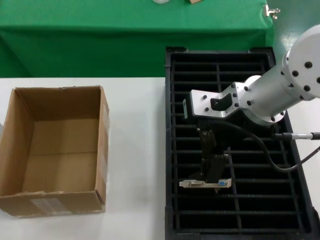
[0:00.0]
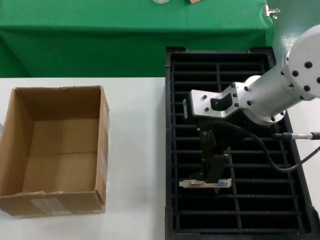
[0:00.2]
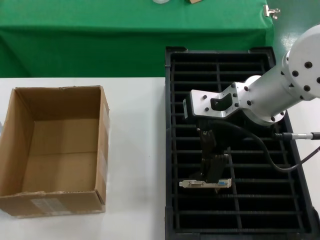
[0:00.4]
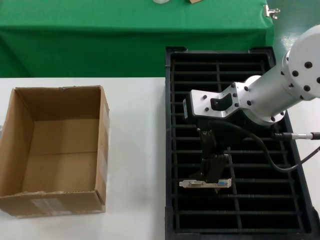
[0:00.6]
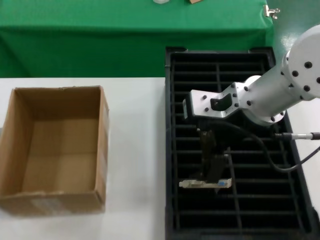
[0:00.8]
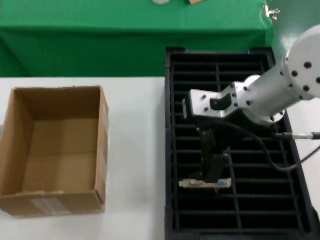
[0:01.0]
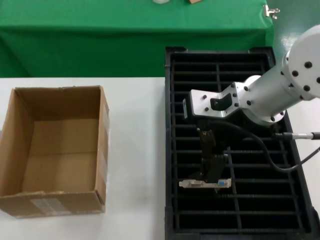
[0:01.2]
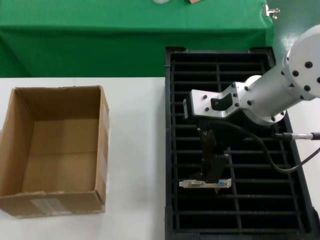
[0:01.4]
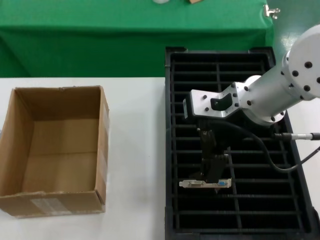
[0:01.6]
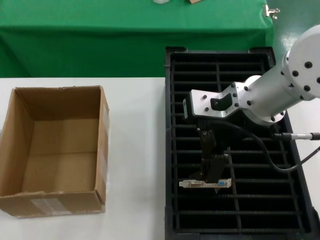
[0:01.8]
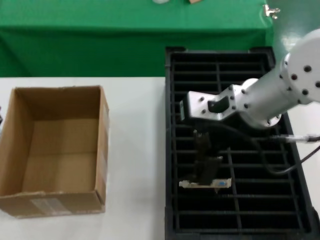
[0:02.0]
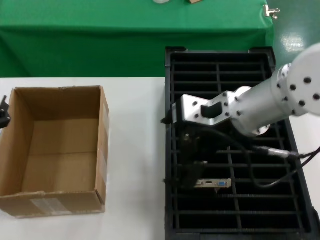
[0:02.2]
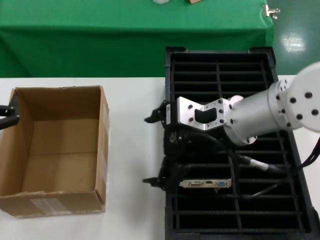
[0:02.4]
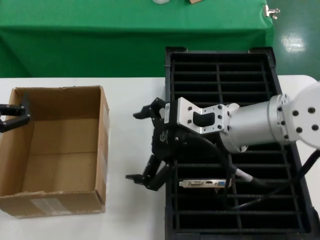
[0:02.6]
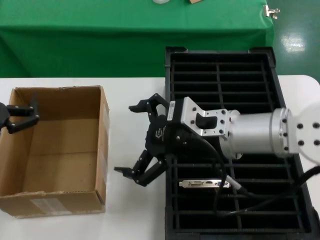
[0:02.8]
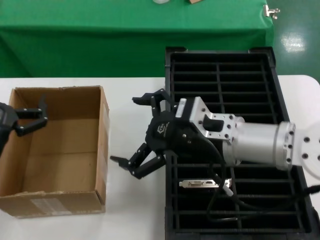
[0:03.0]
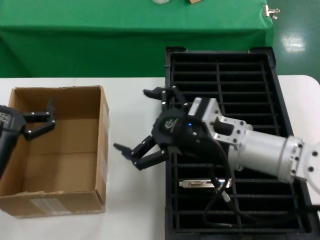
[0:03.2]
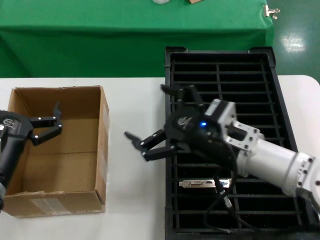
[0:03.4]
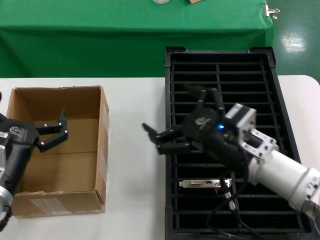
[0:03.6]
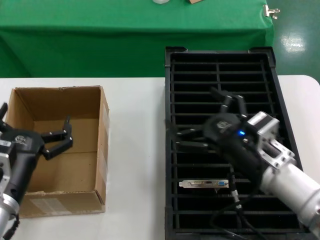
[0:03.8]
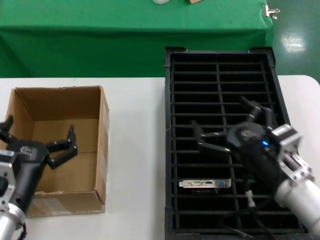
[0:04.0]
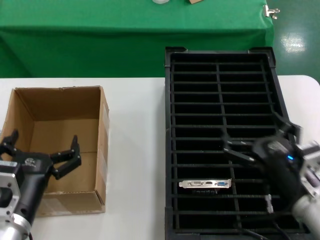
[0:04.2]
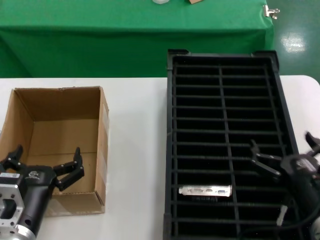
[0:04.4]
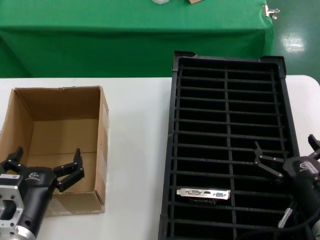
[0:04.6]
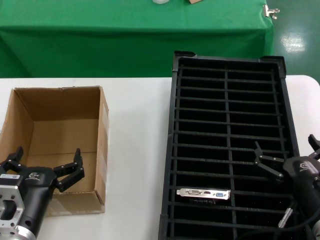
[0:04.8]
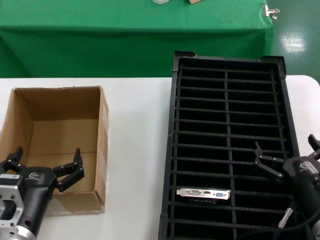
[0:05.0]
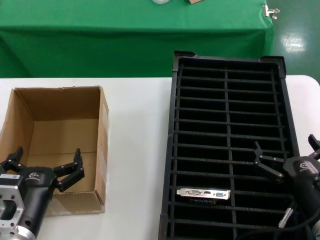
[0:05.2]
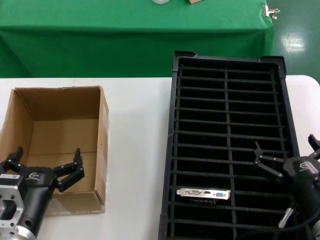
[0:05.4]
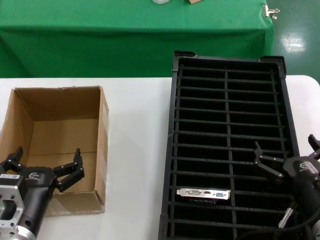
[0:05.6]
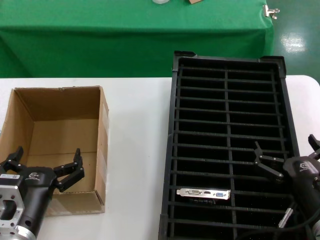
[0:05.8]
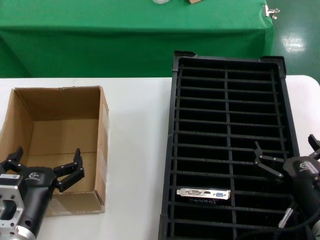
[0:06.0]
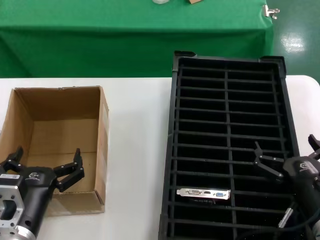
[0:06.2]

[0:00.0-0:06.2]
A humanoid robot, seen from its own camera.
Task of the whole recording: take out graphics card from box remove packaging put into black container.
0:01.6 to 0:03.2: The left hand is displaced to the right and downward by approximately 10 cm. The right hand is displaced downward by some 15 cm.
0:03.2 to 0:04.6: The right hand travels downward, to the right and backward by about 20 cm; the left hand travels downward by some 10 cm.
0:04.6 to 0:06.2: Both hands stay put.
